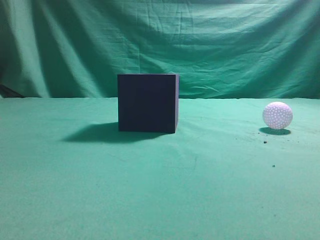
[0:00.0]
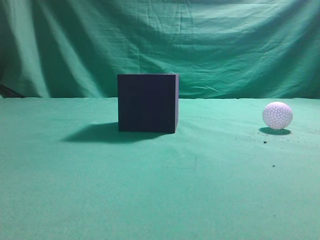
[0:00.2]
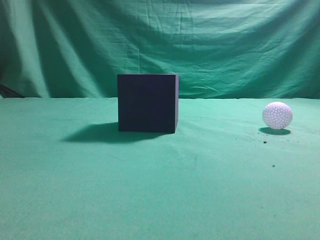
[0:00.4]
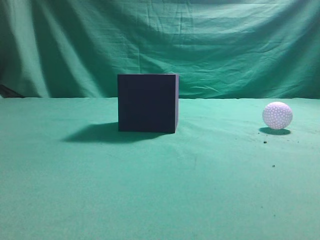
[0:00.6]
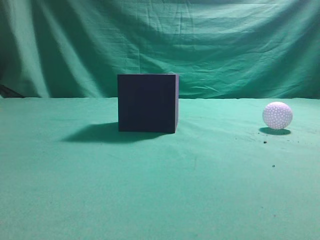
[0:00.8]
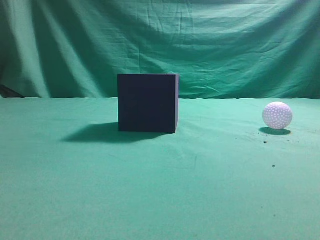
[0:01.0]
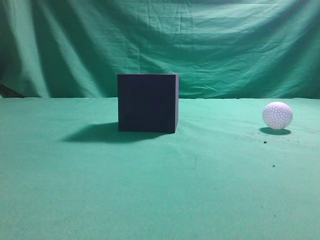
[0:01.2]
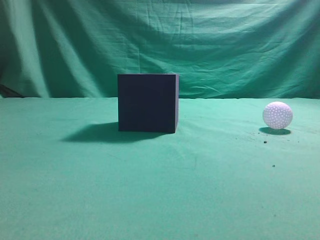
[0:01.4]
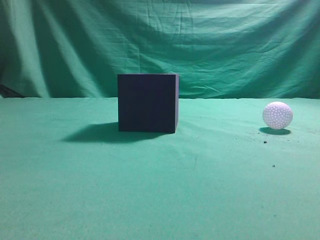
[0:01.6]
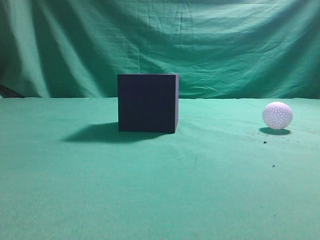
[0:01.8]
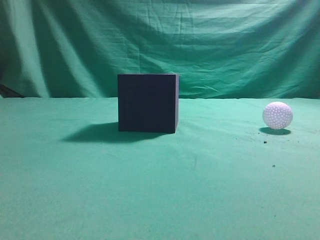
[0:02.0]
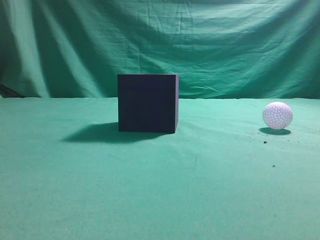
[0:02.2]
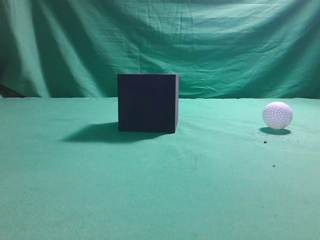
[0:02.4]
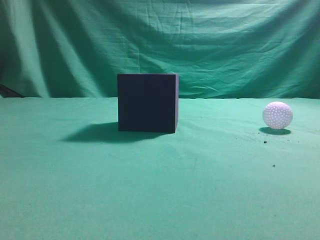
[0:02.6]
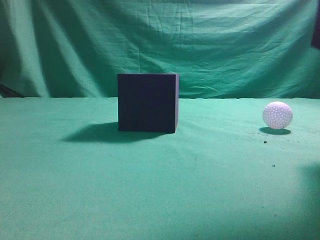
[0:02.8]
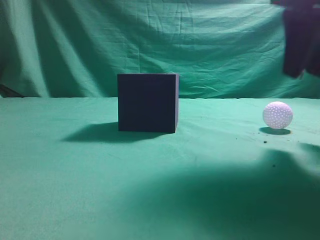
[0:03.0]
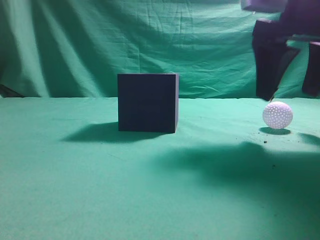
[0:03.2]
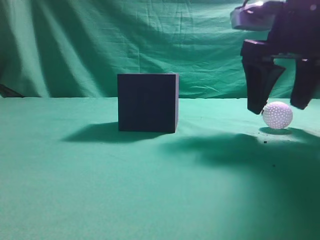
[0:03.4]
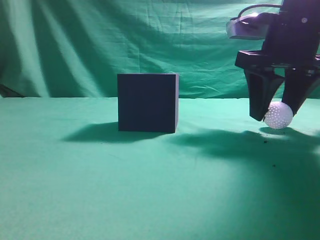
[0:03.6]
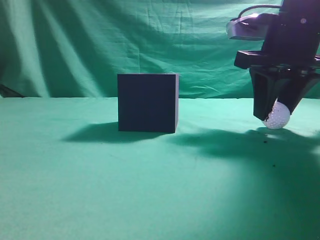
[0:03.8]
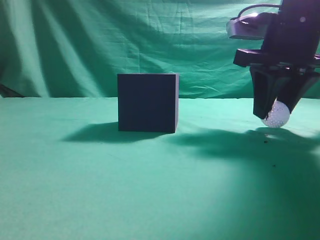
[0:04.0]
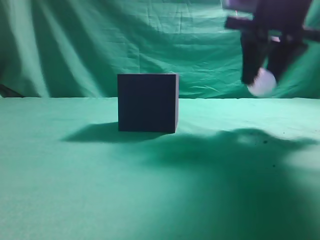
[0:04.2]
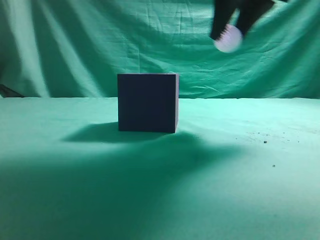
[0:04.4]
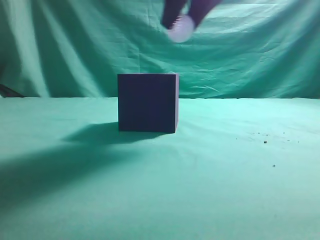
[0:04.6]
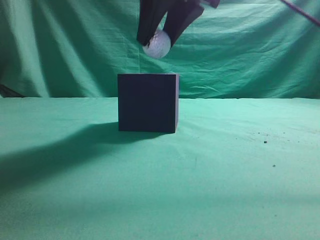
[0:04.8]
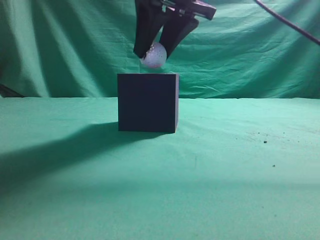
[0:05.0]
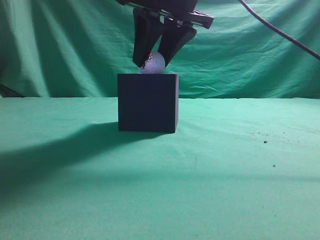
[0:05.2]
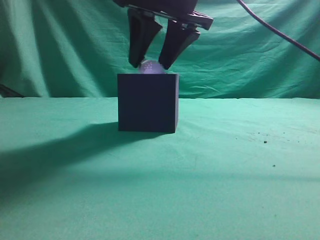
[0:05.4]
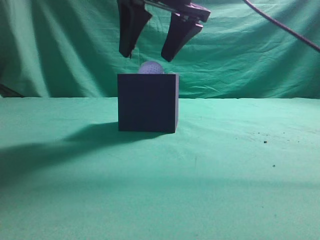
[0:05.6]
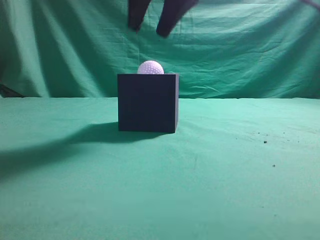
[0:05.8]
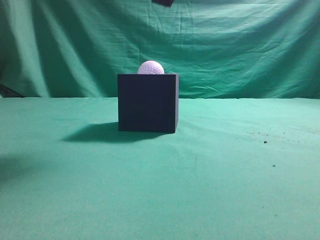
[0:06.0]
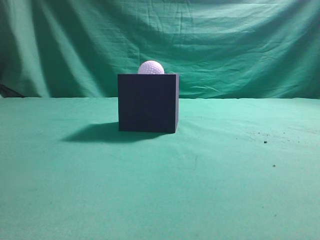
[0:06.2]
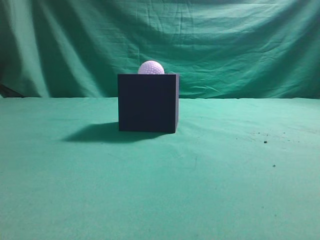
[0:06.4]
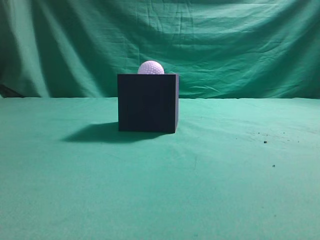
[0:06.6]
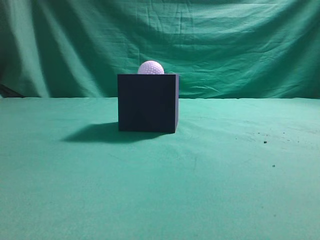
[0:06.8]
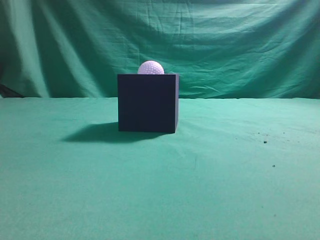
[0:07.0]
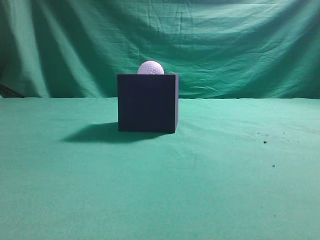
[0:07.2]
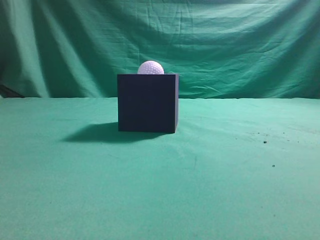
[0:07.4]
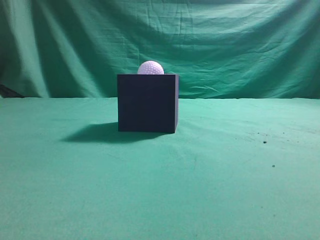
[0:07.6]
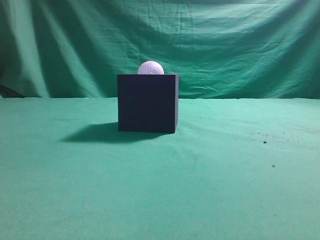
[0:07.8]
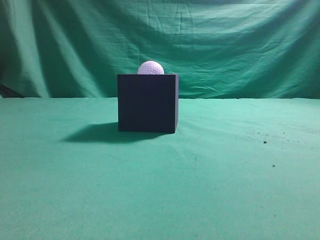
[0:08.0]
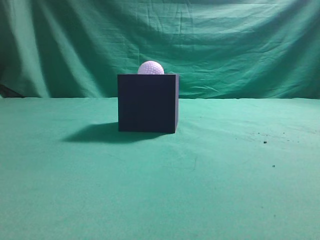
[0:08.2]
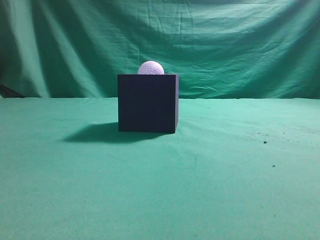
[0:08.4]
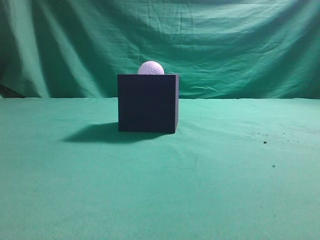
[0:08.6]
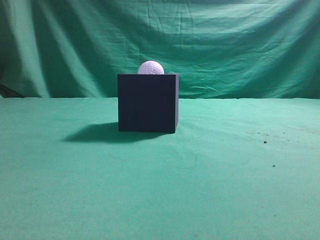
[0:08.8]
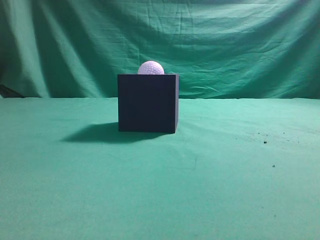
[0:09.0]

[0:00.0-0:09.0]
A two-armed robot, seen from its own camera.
Task of the whole recording: Pick up the ball and place it in the circular groove above the cube.
Step, 0:00.0 to 0:03.4: Grasp the sphere on the table.
Step, 0:03.6 to 0:04.6: Place the sphere into the sphere-shaped recess.
0:01.6 to 0:03.0: The right gripper is displaced forward and to the left by about 25 cm, and opens up.
0:03.0 to 0:04.4: The right gripper goes roughly 10 cm forward and to the left, and opens, then closes again.
0:04.4 to 0:06.0: The right gripper is displaced to the left by approximately 10 cm, and closes up.
